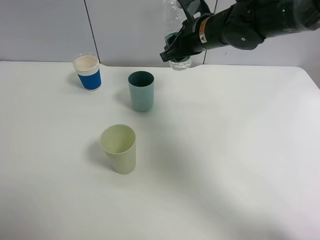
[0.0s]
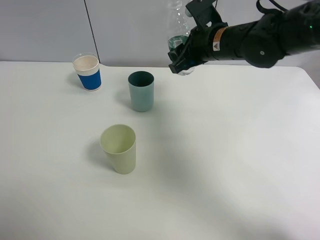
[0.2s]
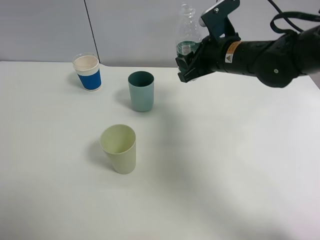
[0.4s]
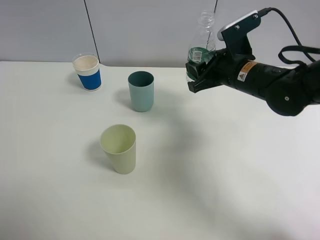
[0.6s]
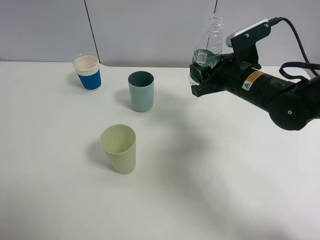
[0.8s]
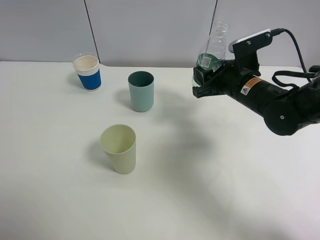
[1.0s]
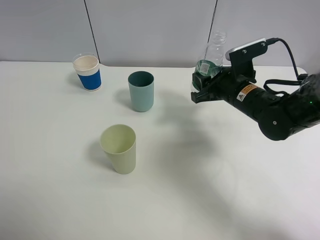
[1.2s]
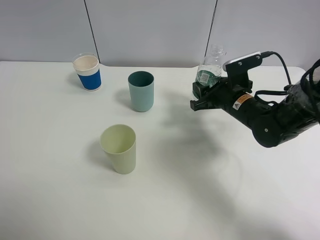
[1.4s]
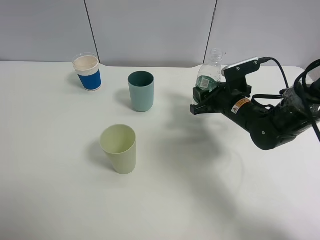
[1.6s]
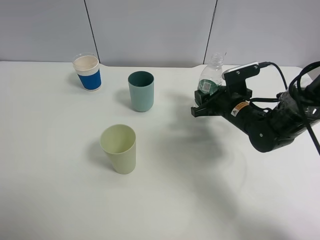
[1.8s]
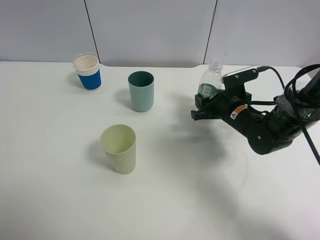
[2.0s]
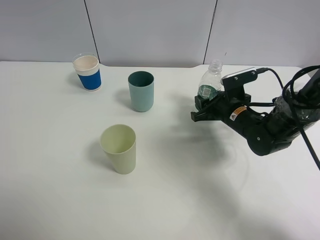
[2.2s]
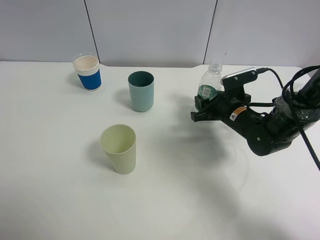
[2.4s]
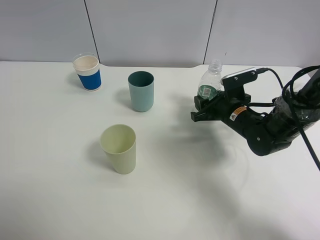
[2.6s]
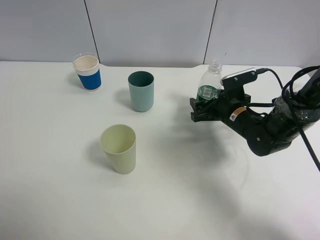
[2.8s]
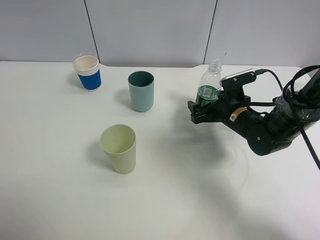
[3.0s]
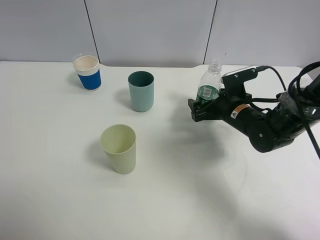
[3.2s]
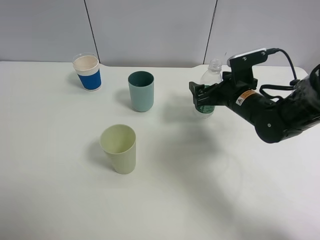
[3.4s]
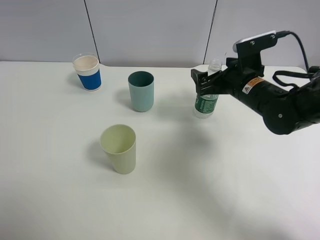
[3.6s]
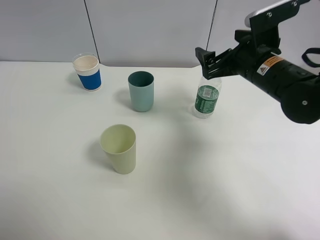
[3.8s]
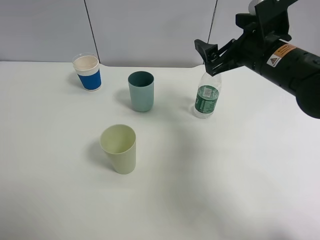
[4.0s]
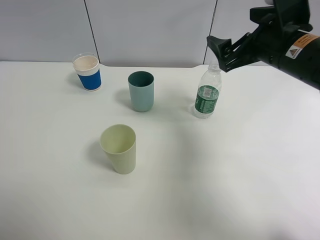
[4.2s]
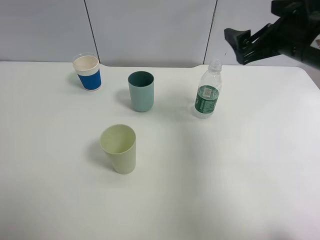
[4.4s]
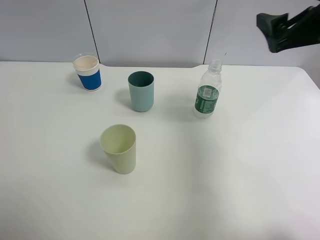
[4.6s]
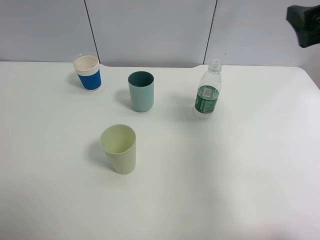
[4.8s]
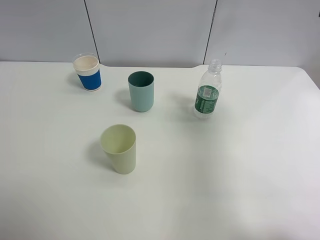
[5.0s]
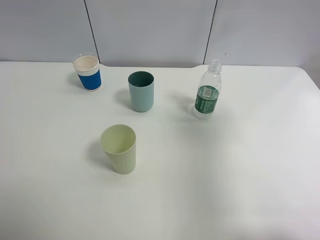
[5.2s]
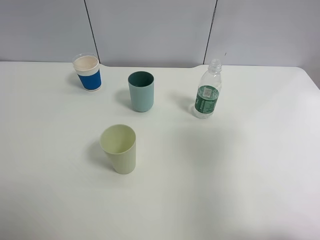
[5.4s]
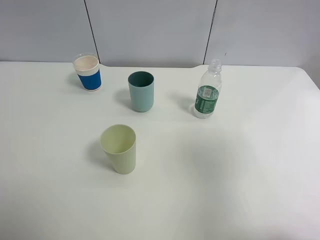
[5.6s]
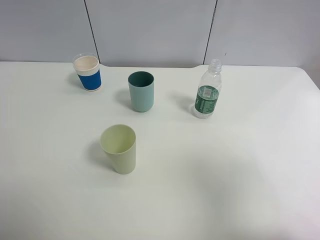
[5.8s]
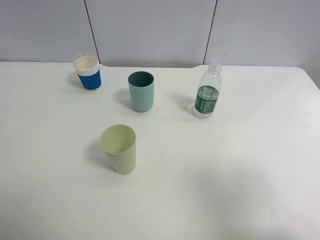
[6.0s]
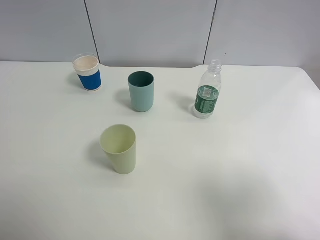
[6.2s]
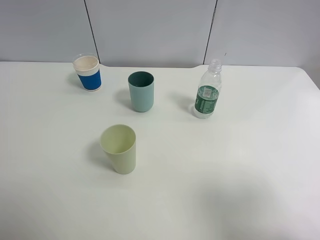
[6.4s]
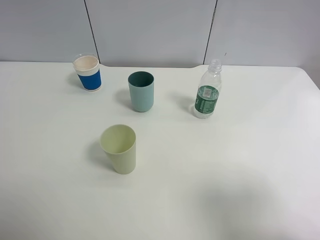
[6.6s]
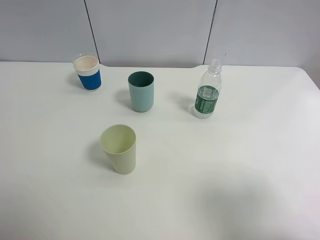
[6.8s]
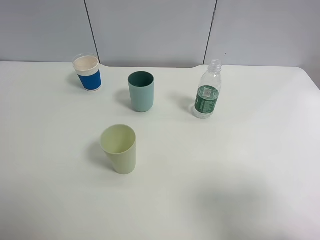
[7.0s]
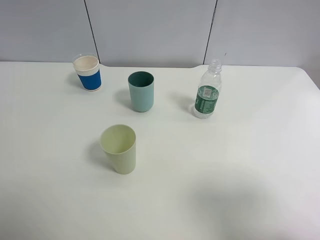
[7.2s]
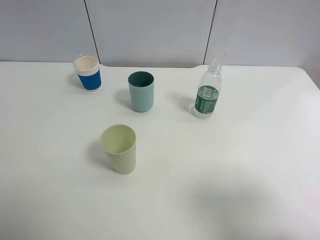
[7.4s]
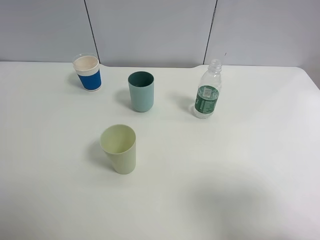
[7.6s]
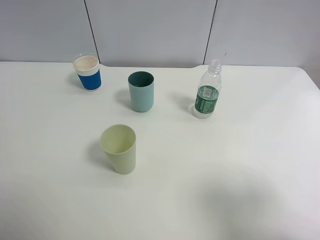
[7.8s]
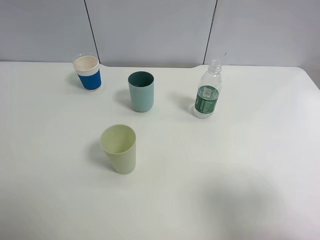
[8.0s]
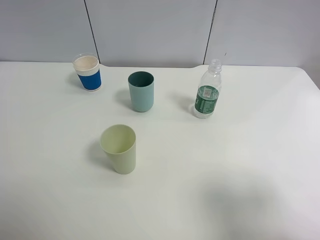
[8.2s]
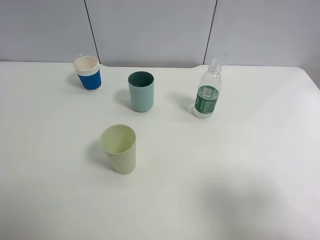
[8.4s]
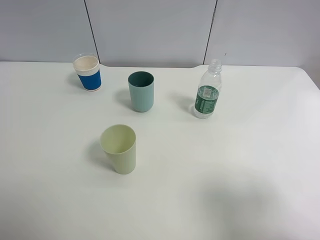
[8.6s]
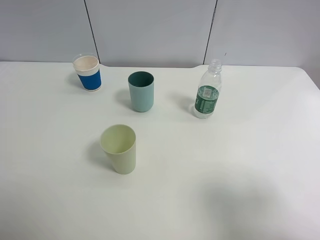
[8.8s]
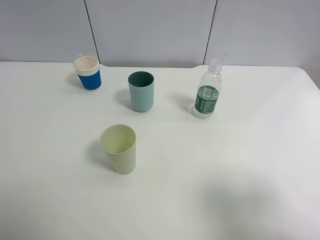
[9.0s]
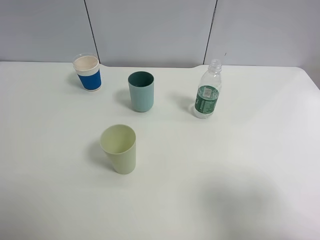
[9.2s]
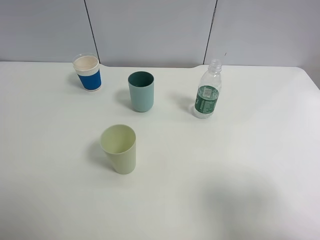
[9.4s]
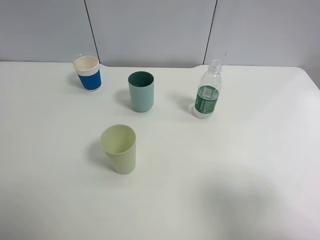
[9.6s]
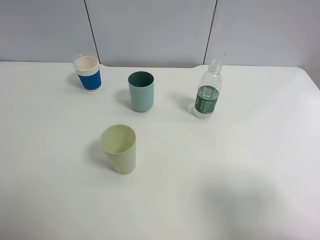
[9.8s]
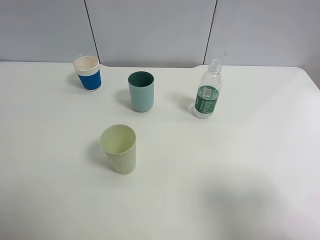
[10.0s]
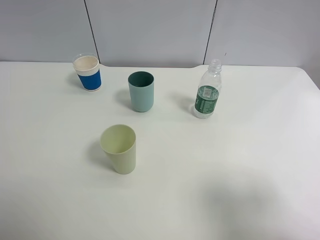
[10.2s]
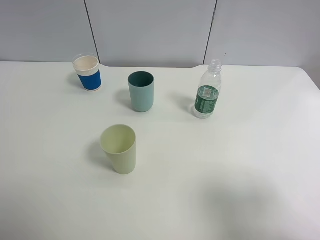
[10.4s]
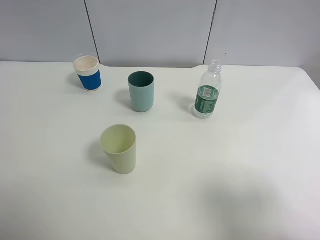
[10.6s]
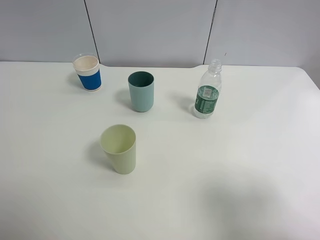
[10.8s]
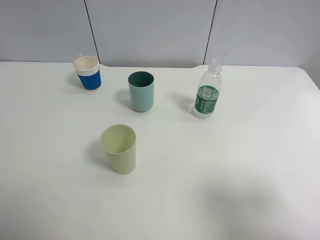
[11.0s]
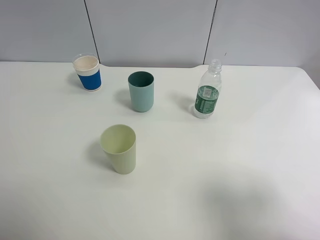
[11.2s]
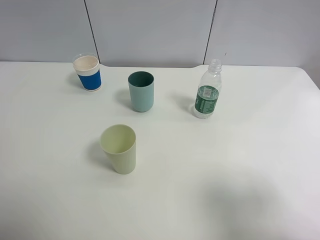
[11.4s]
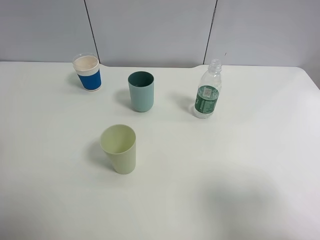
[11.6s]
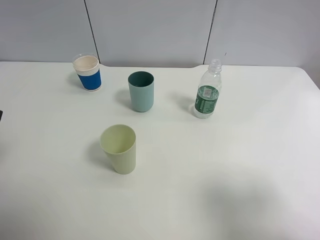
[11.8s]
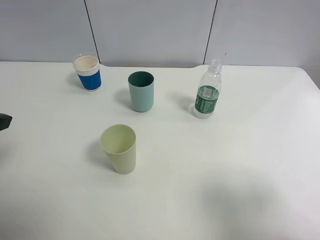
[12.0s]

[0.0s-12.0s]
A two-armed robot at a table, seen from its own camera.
Task of the whole recording: use a clamp to hold the bottle of the drink, pour the beverage into a random cup, then clamp the cup containing the drink and pour the drink into another random cup.
Step, 0.0s to 3.8s: Place the water bottle on the table with right gripper.
0.0s to 1.6s: The right gripper heads downward, to the right and backward, covering roughly 15 cm.
1.6s to 3.0s: The right gripper opens up.
3.0s to 4.4s: The right gripper goes approximately 20 cm upward.
4.4s to 6.0s: The right gripper heads backward, covering approximately 25 cm.
9.0s to 10.4s: Neither gripper changes place.

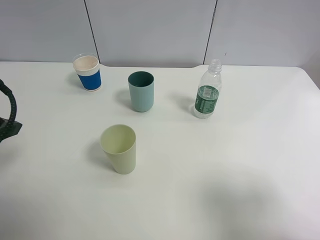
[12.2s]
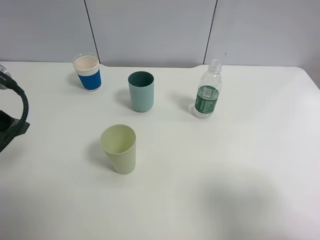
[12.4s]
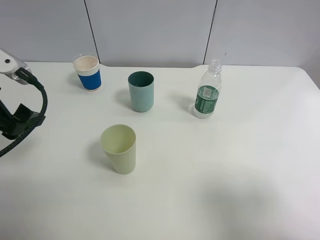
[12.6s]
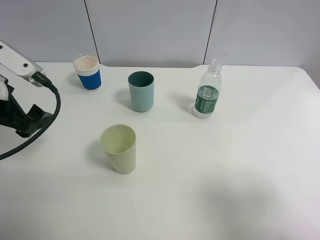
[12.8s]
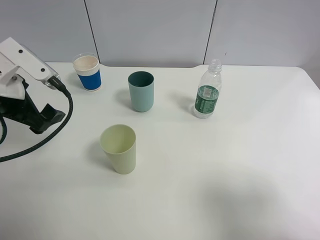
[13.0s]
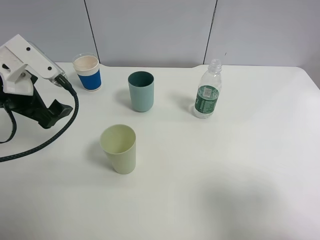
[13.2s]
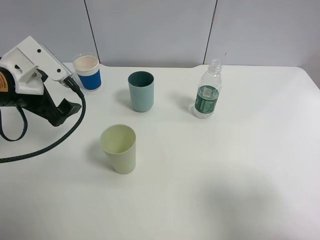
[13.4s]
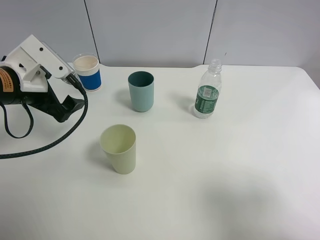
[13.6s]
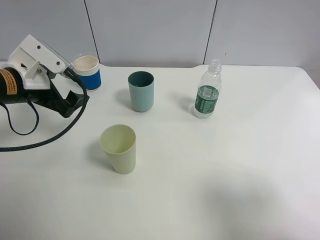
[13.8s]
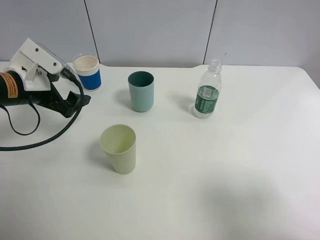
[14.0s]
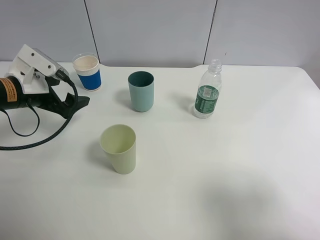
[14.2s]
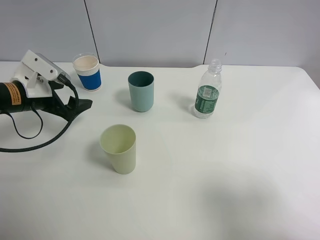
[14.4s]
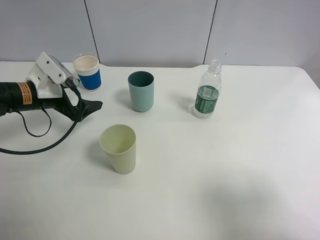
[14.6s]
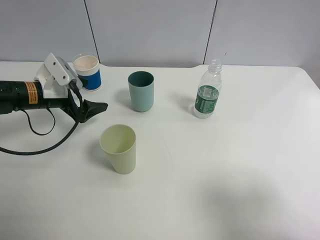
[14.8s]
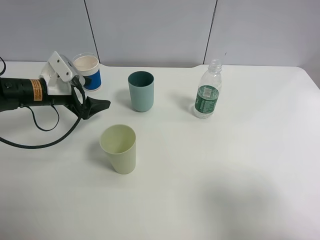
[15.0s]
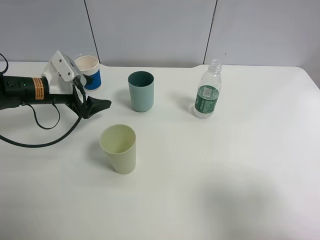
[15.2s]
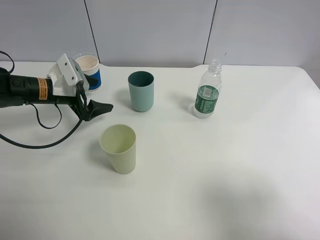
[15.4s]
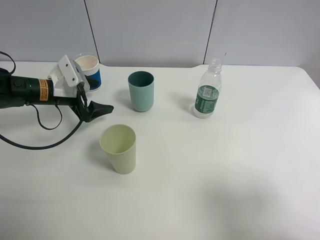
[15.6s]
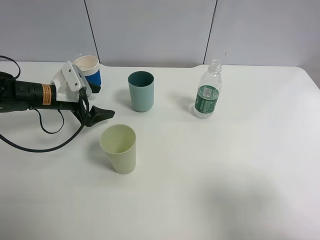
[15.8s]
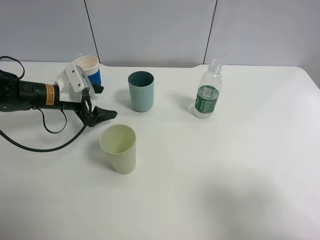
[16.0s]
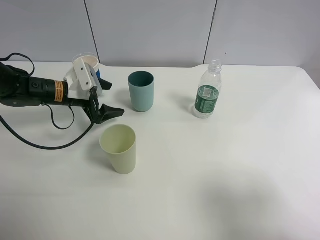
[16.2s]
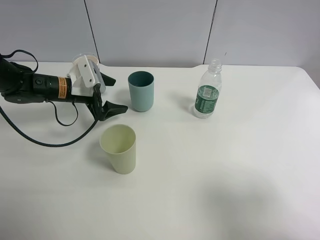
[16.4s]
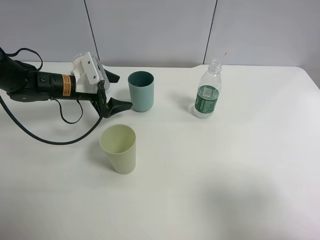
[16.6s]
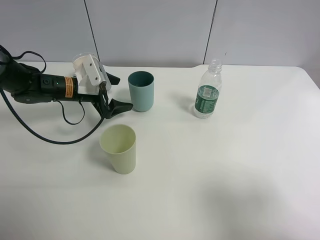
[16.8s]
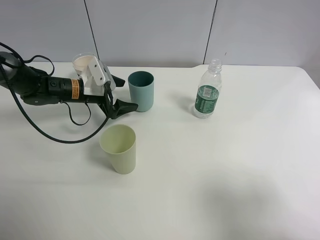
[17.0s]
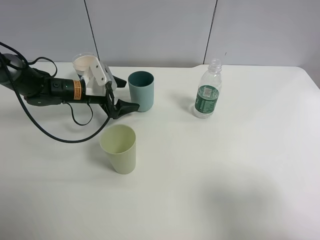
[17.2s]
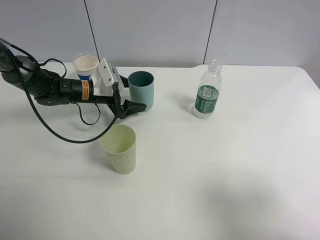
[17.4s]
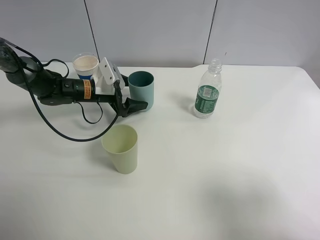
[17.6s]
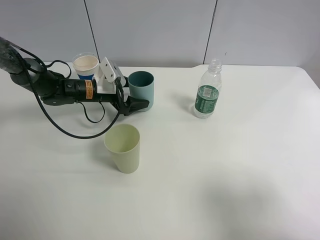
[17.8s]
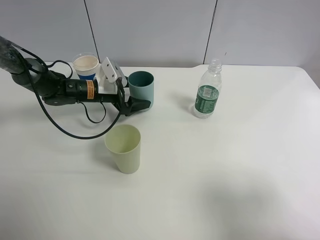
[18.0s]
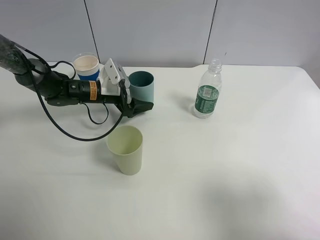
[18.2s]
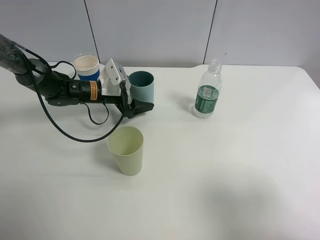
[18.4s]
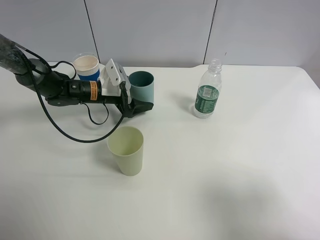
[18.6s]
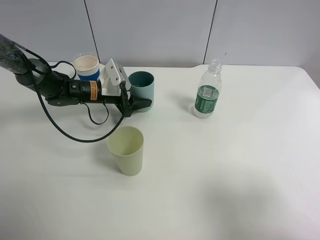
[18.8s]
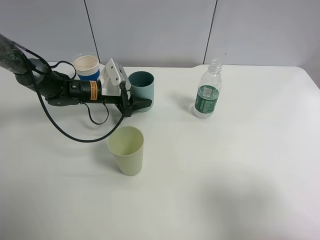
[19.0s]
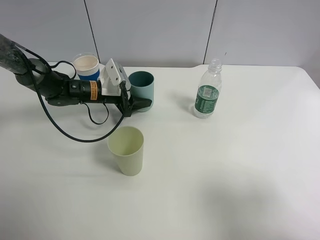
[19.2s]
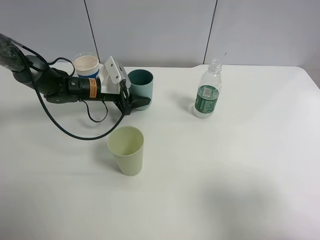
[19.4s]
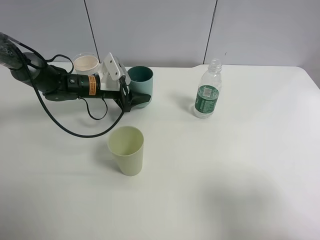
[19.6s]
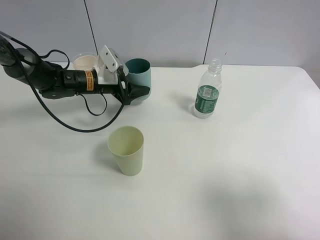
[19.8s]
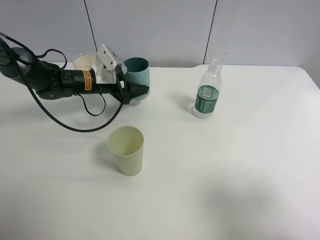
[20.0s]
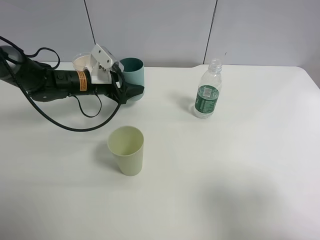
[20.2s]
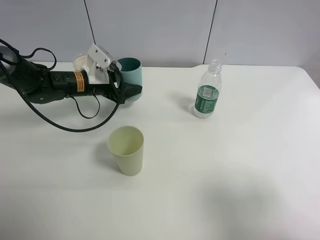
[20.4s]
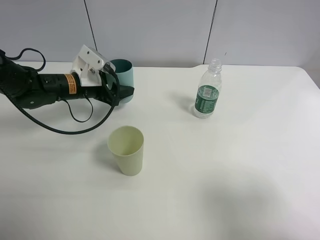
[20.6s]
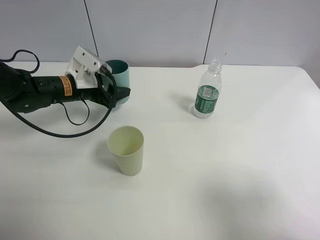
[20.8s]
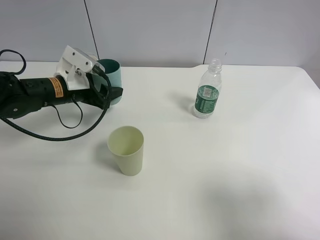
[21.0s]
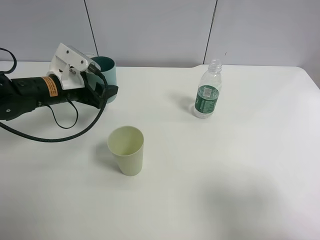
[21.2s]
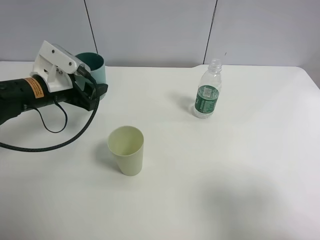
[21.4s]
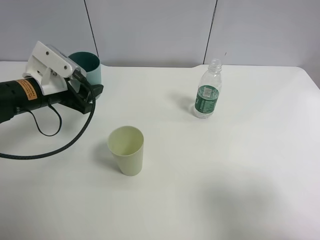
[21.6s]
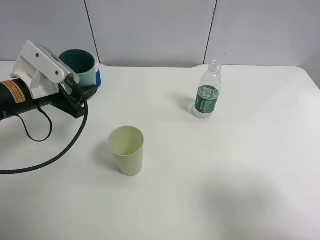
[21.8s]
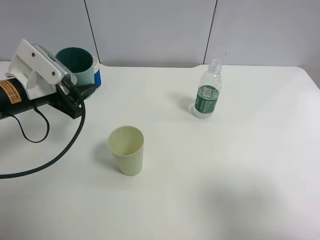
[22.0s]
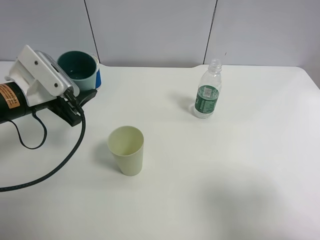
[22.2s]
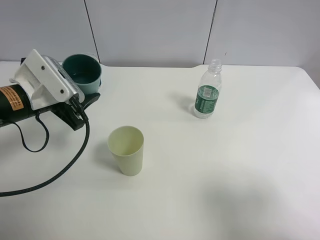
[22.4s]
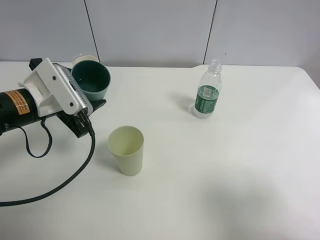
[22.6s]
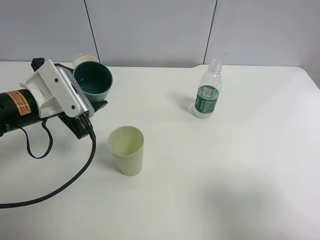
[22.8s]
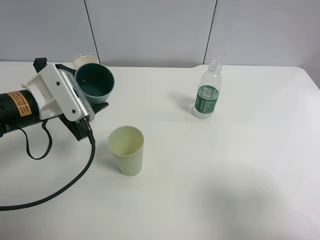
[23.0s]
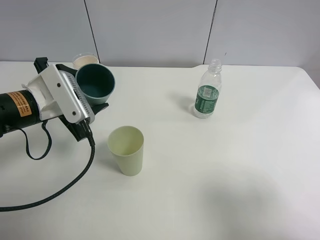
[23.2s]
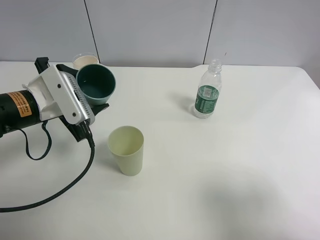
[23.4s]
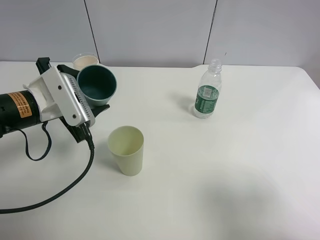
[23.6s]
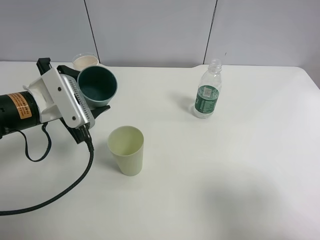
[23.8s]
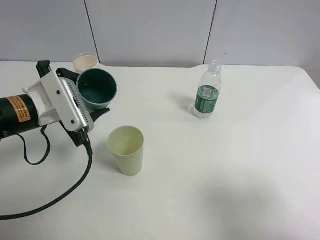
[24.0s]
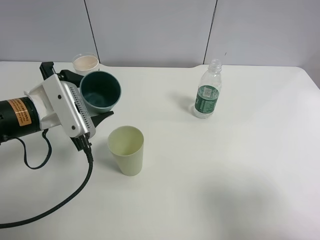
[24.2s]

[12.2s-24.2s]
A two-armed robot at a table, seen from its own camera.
Task of the whole recording: use a clamp to hold the bottle of the drink, pour the beverage into a random cup, then clamp the cup containing the drink and pour the drink into another random cup.
Step, 12.2s to 20.8s: Pick up the blue plastic cup bottle with left gripper.
12.2s to 13.8s: The left gripper heads forward and downward, covering approximately 15 cm.
13.8s to 15.2s: The left gripper moves forward and downward, some 10 cm.
15.2s to 16.6s: The left gripper changes place by about 5 cm.
16.6s to 18.2s: The left gripper ends up about 5 cm from where it was.
18.2s to 19.8s: The left gripper closes up.
19.8s to 21.2s: The left gripper heads backward and to the left, covering some 10 cm.
21.2s to 22.6s: The left gripper heads backward, covering about 10 cm.
22.6s to 24.2s: The grippers move only a little.
